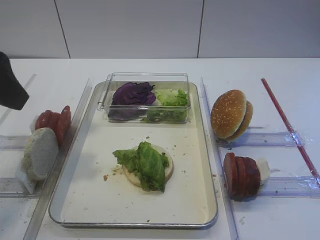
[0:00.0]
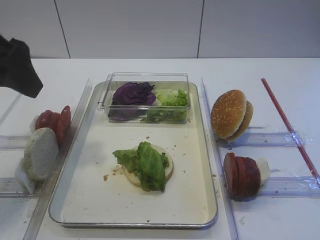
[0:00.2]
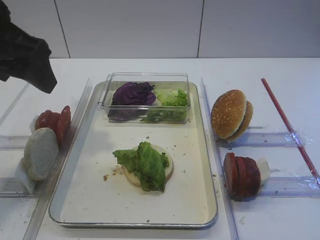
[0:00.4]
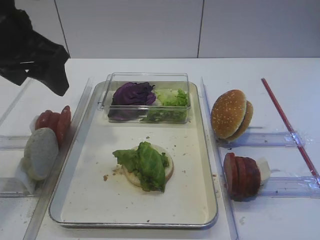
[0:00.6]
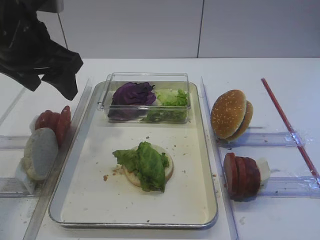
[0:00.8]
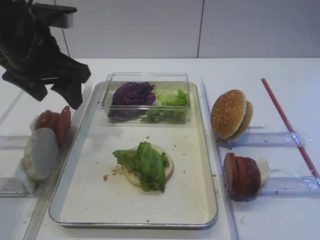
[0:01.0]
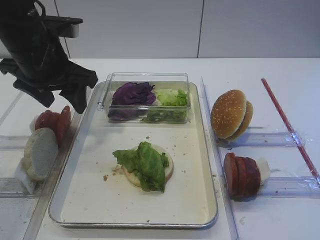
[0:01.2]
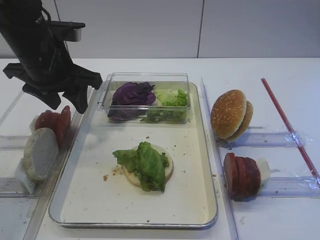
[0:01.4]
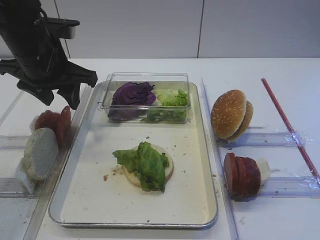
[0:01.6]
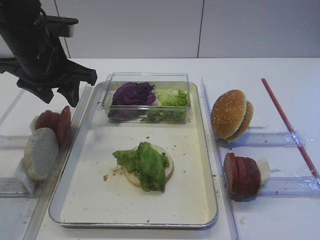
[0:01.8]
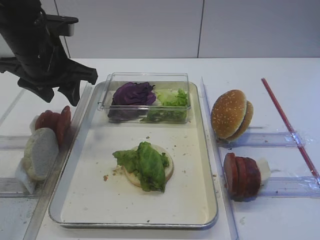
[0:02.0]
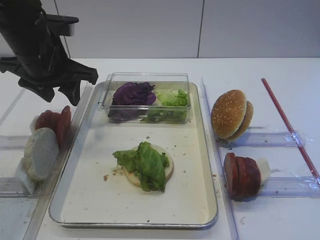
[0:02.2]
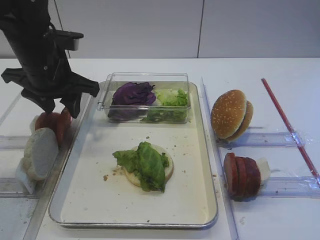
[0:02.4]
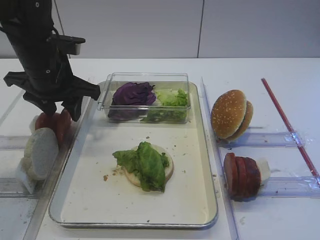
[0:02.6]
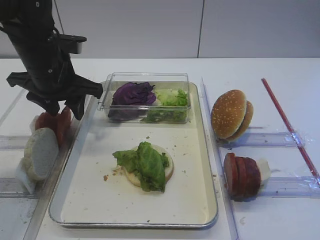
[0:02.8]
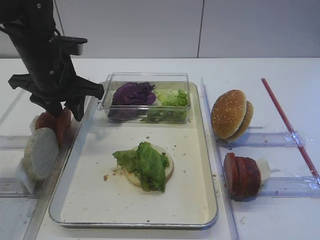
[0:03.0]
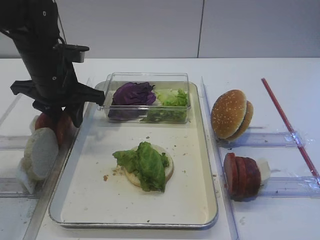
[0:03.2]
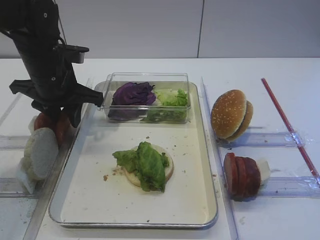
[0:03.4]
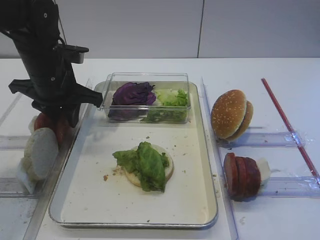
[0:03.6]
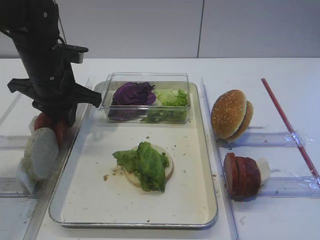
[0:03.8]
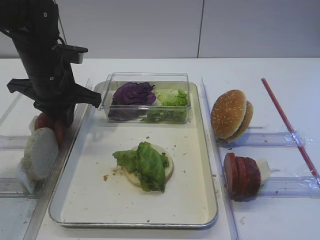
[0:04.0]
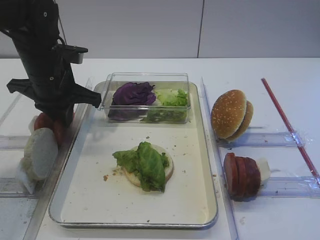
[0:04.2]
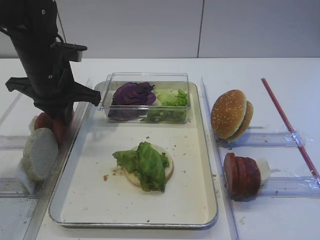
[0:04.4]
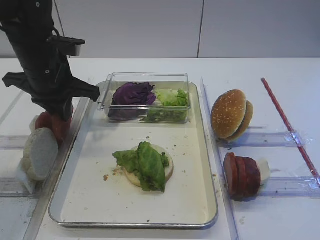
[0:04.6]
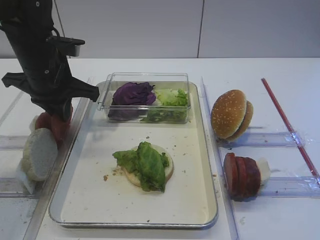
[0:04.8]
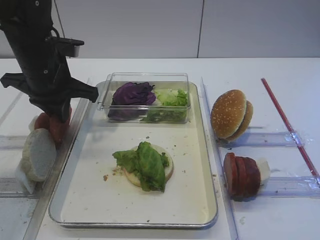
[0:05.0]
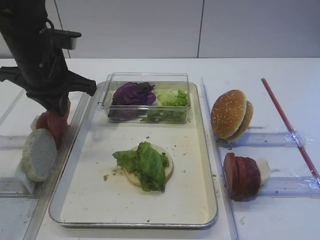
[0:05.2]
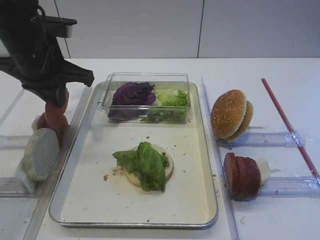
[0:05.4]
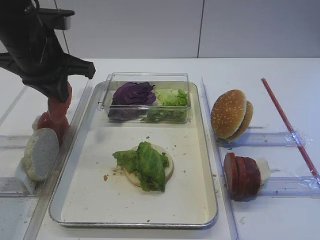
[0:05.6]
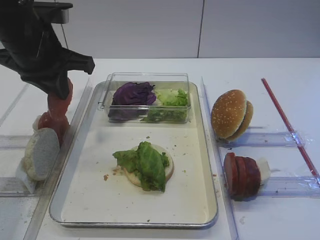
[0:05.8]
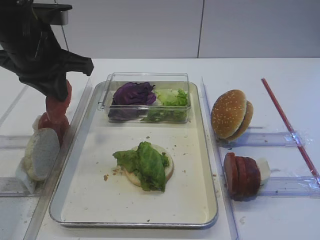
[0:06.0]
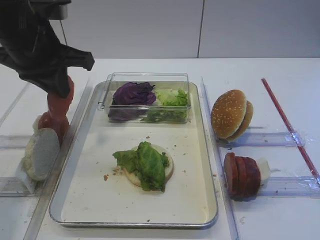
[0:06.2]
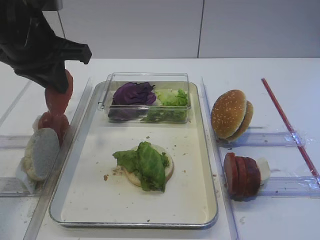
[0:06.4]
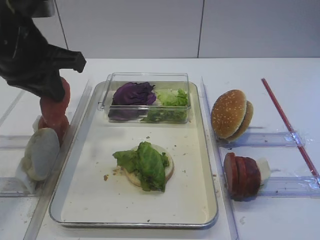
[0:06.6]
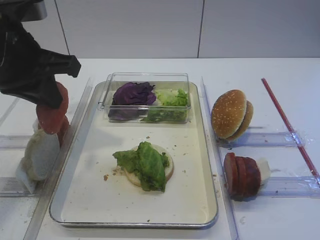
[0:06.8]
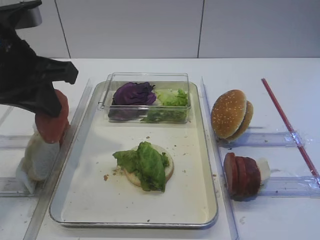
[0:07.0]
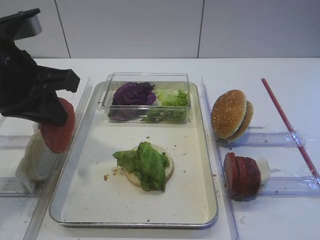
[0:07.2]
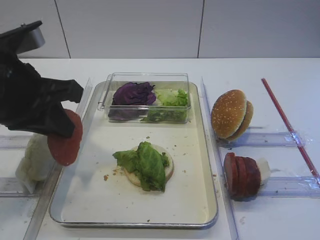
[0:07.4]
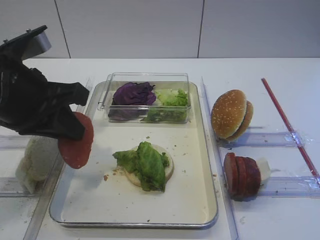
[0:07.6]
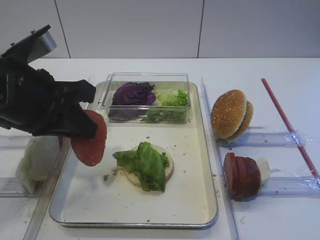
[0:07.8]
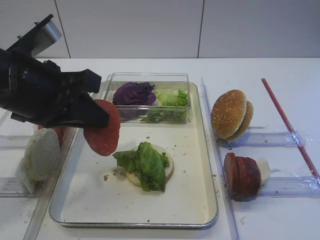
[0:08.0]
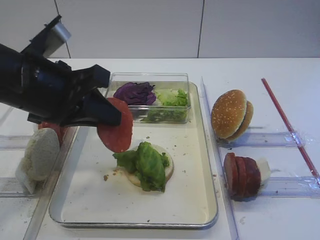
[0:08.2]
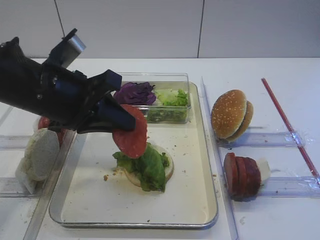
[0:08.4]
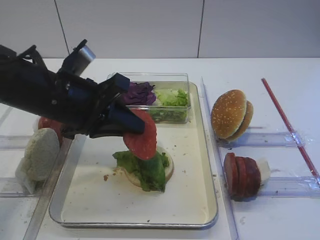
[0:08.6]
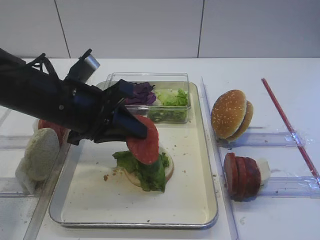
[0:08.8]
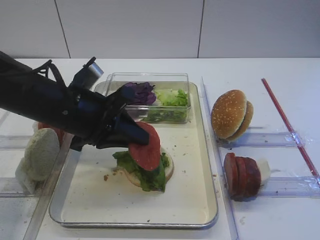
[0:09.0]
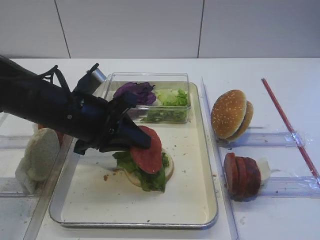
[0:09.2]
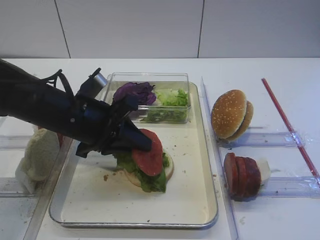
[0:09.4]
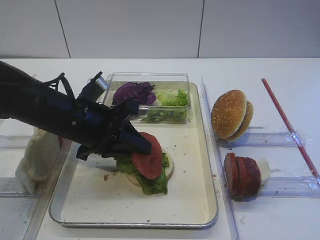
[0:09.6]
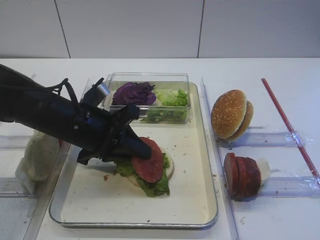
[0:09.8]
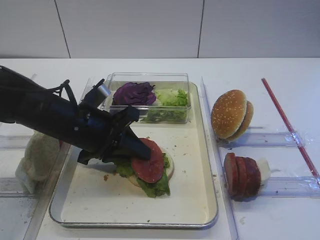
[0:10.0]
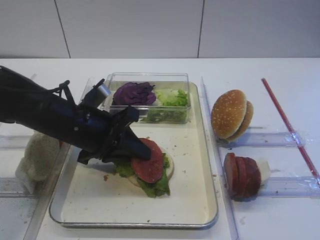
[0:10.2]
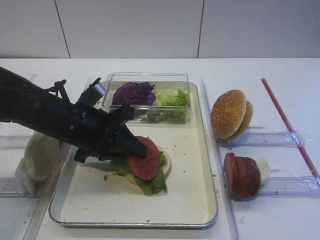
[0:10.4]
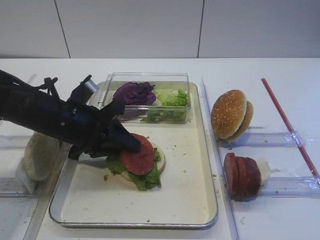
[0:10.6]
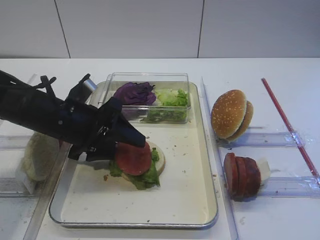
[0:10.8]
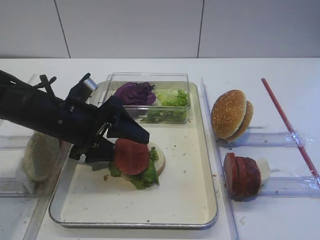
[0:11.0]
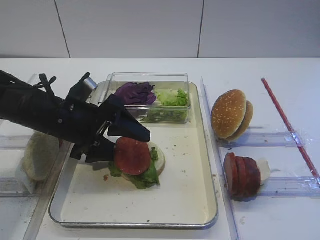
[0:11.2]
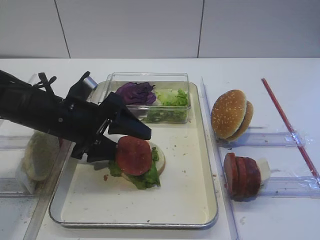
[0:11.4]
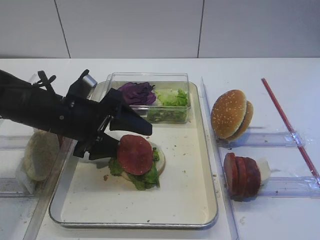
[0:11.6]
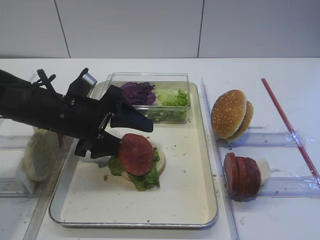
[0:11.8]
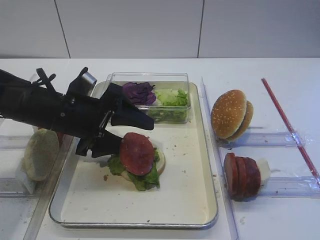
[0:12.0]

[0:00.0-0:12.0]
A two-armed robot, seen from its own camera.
Step, 0:00.0 to 0:05.4: Pick up the tomato slice with the left gripper.
0:00.0 to 0:01.6: The left gripper shifts some 20 cm forward and downward.
0:01.6 to 0:03.0: The grippers make only small movements.
0:03.0 to 0:04.4: The left gripper closes up.
0:04.4 to 0:06.0: The left gripper shifts about 5 cm upward.
0:06.0 to 0:07.6: The left gripper goes roughly 10 cm backward.
0:07.6 to 0:09.0: The left gripper moves downward and to the right, some 10 cm.
0:09.0 to 0:10.4: The grippers move only a little.
0:10.4 to 0:12.0: The left gripper opens.

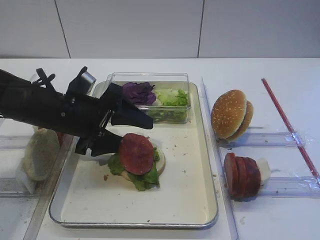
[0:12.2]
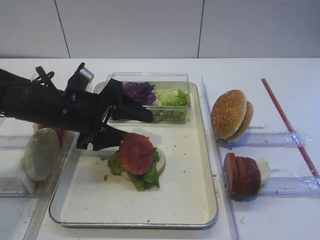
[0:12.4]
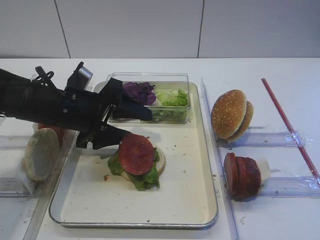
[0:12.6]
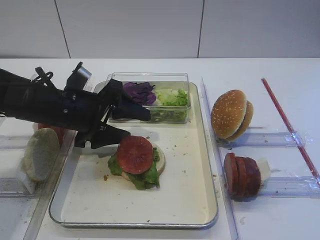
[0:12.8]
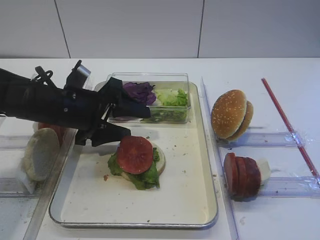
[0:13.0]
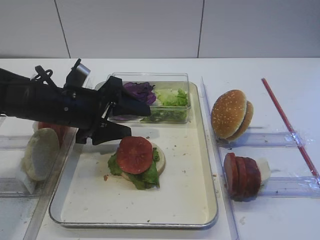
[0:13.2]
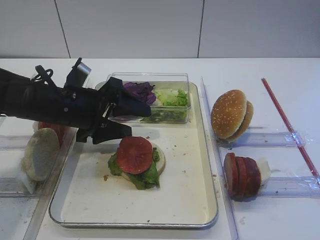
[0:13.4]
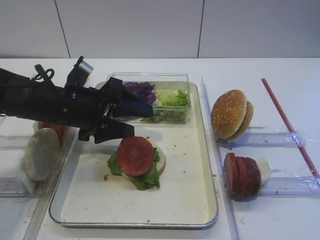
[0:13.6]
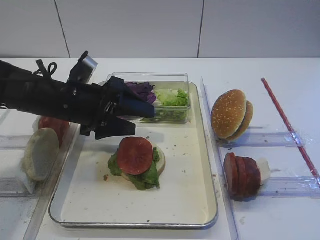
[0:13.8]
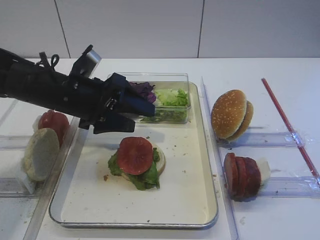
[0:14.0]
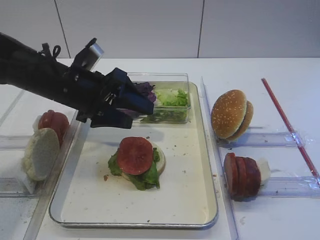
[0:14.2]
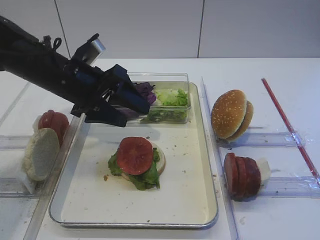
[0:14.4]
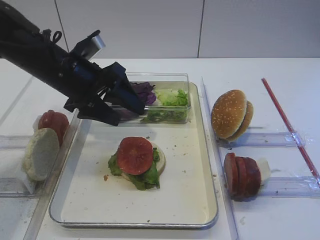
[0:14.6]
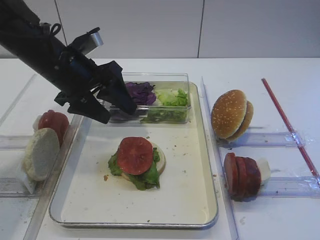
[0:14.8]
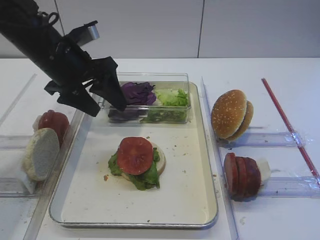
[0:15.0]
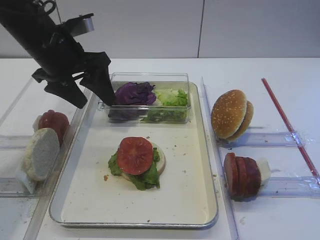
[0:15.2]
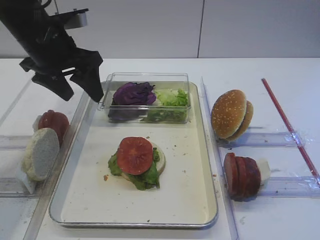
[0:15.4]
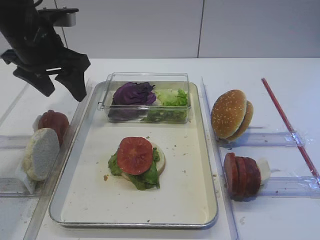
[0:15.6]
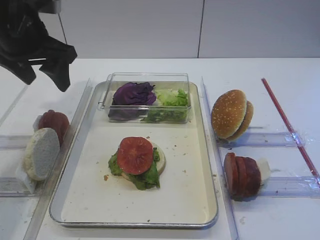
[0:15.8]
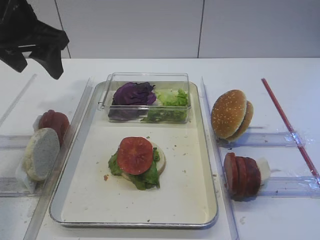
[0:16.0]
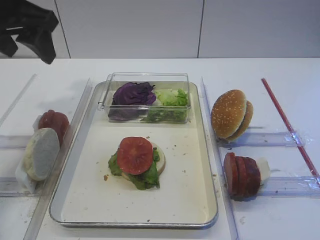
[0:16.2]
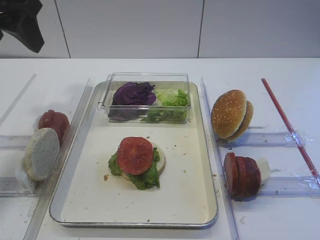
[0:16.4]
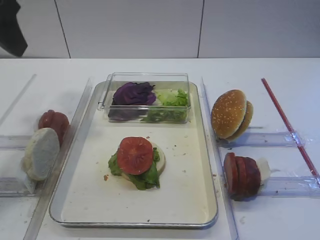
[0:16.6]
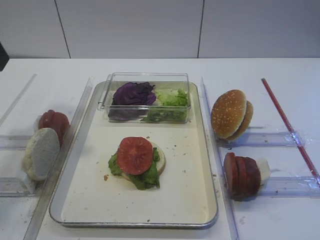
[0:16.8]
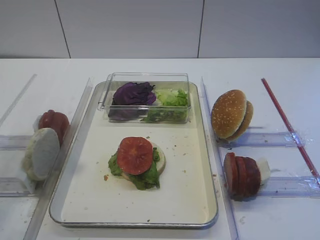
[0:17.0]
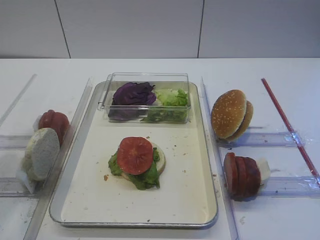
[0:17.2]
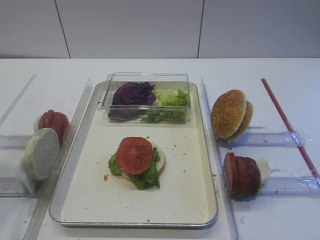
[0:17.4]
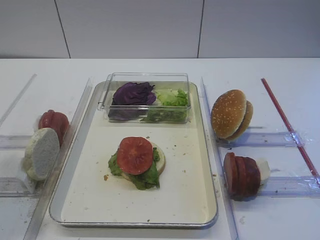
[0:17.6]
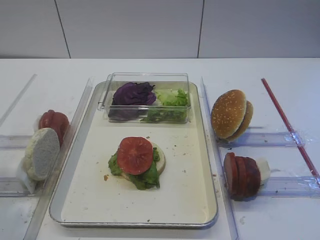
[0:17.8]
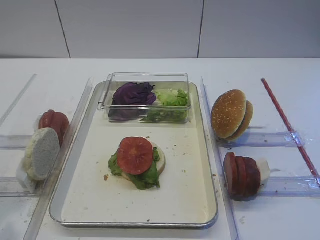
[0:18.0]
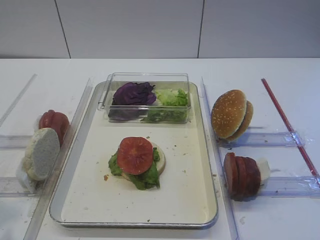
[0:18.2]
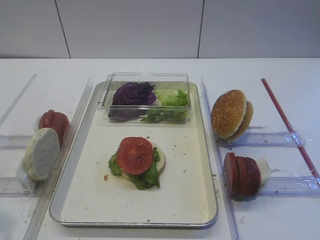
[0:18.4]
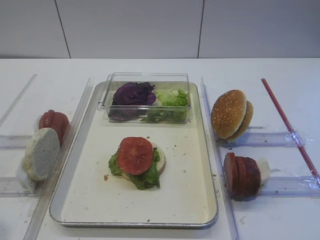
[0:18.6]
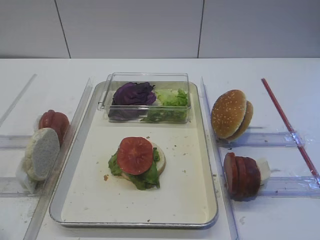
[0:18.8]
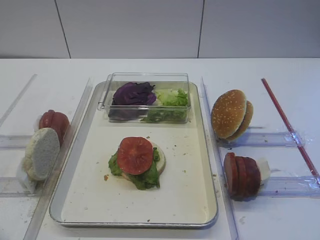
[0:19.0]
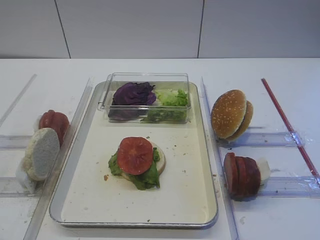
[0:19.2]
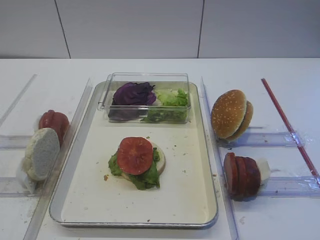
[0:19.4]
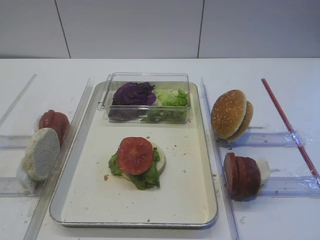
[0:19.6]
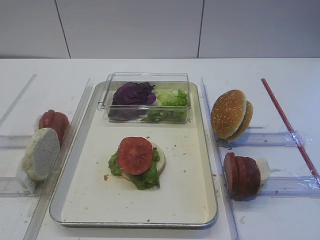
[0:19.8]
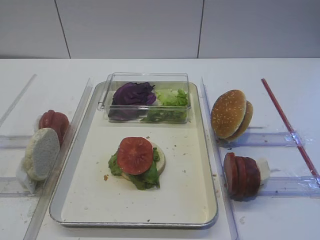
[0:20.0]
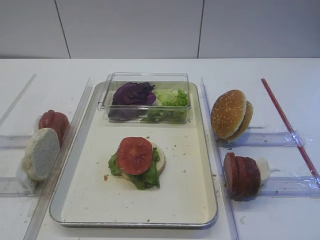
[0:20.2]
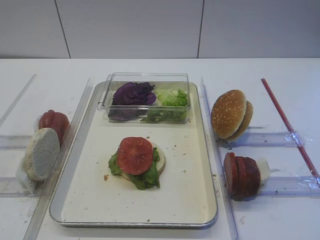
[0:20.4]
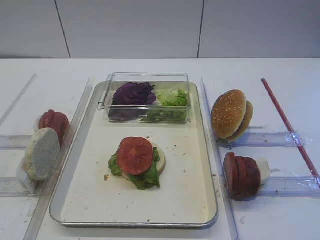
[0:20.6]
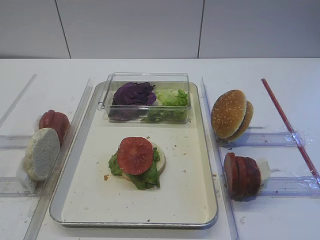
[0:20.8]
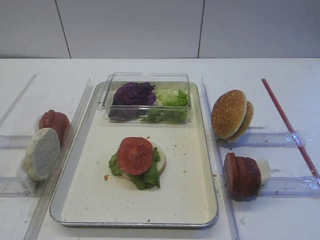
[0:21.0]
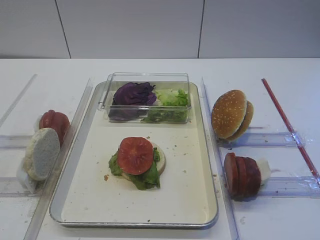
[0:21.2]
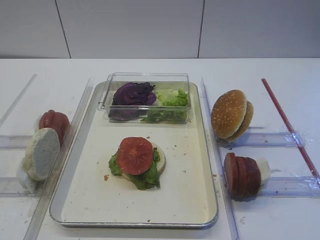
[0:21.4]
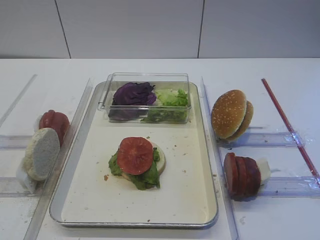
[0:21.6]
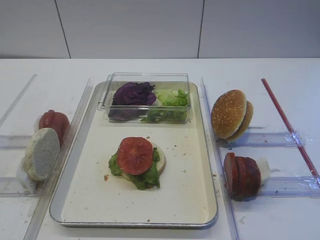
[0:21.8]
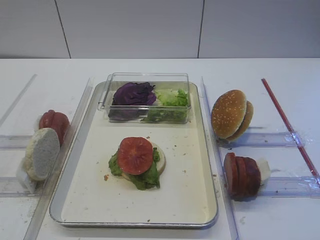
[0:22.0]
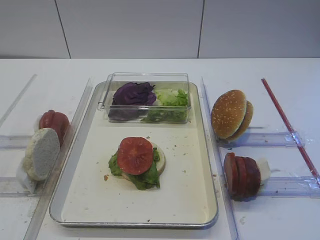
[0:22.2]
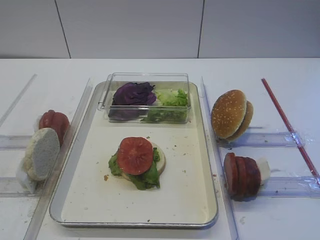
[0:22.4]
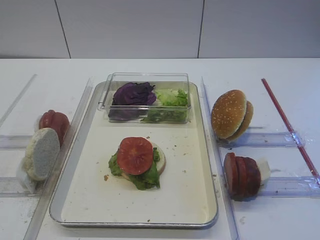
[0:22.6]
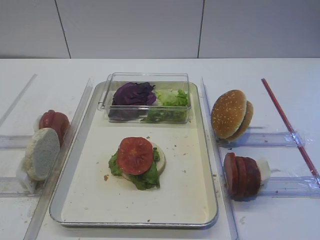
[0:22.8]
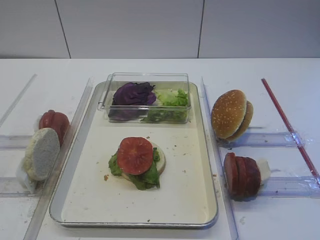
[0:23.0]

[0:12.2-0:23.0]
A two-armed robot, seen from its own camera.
0:12.2 to 0:13.8: The grippers make only small movements.
0:13.8 to 0:15.2: The right gripper opens up. The left gripper heads upward, covering roughly 10 cm.
0:15.2 to 0:16.8: The left gripper shifts roughly 20 cm backward, upward and to the left.
0:16.8 to 0:18.4: The left gripper moves backward and downward, some 20 cm.
